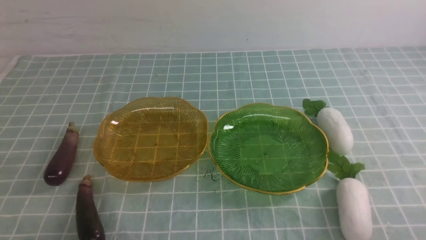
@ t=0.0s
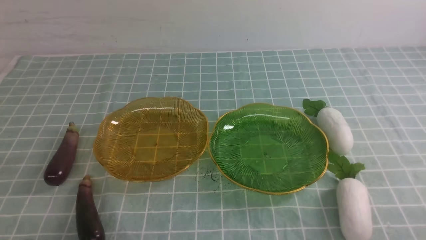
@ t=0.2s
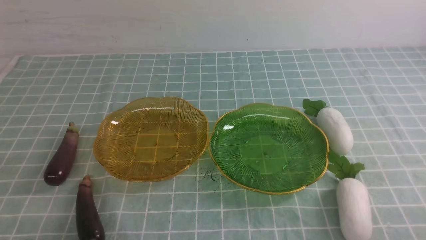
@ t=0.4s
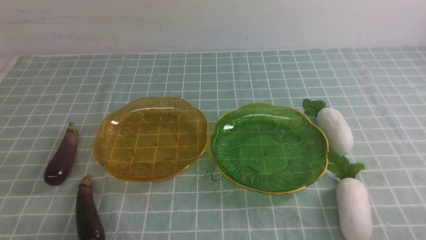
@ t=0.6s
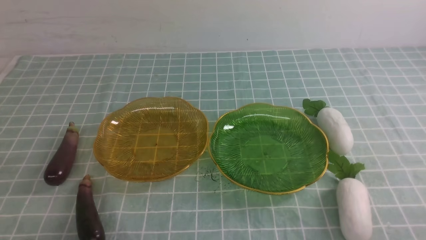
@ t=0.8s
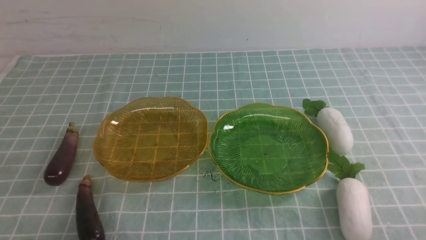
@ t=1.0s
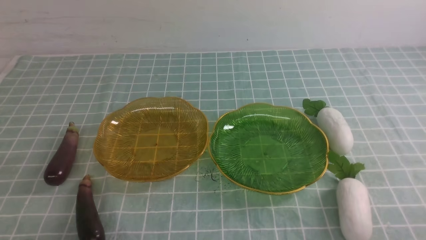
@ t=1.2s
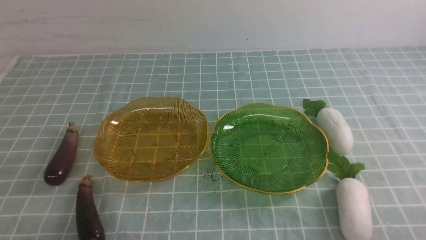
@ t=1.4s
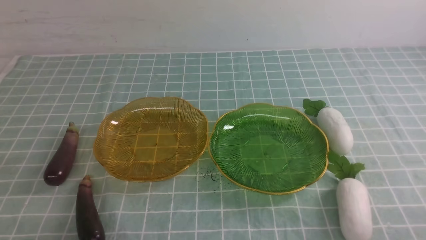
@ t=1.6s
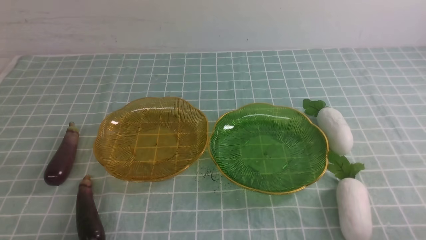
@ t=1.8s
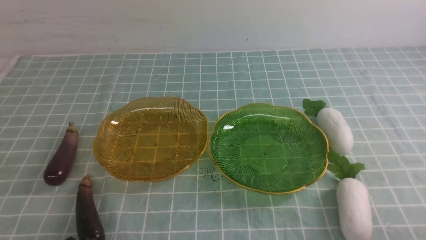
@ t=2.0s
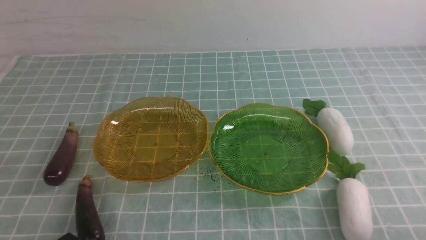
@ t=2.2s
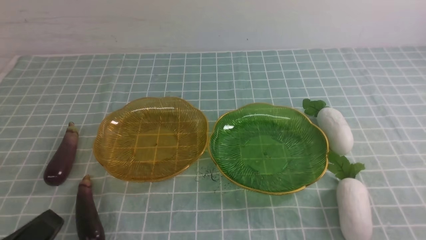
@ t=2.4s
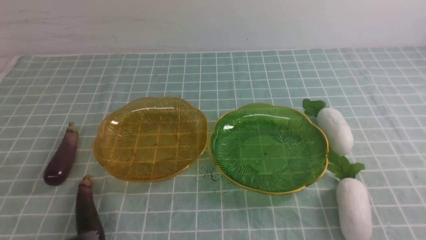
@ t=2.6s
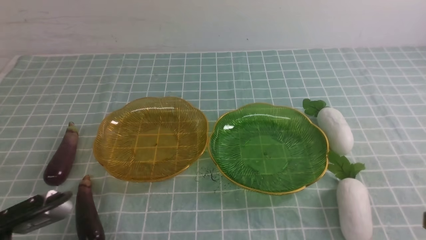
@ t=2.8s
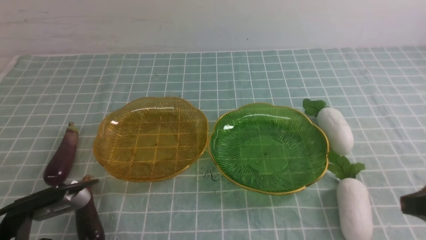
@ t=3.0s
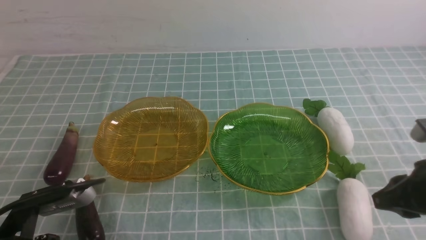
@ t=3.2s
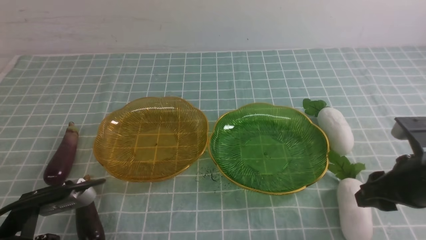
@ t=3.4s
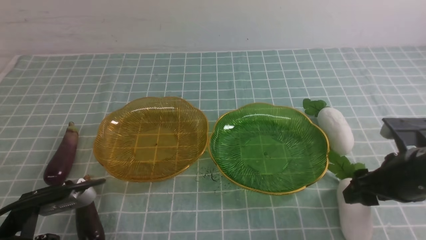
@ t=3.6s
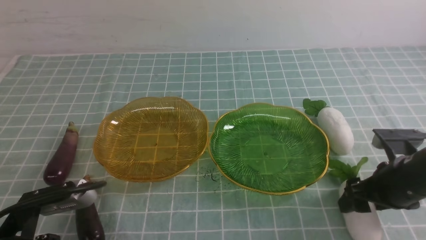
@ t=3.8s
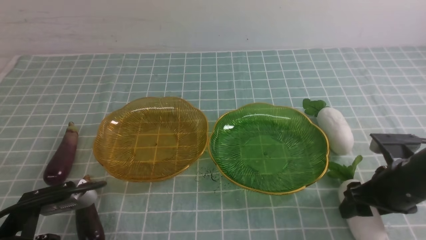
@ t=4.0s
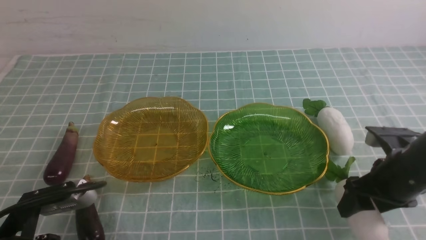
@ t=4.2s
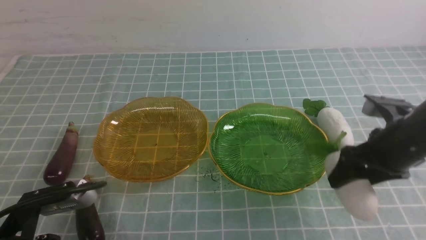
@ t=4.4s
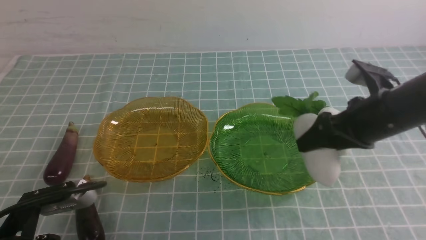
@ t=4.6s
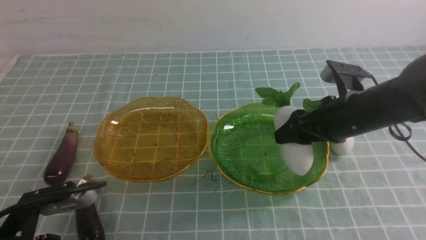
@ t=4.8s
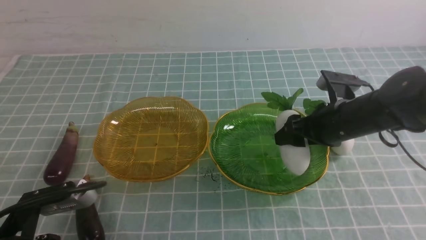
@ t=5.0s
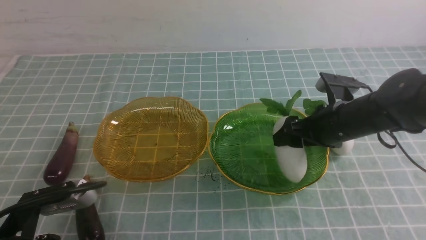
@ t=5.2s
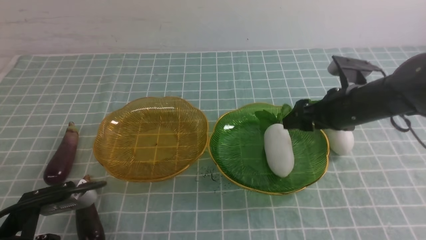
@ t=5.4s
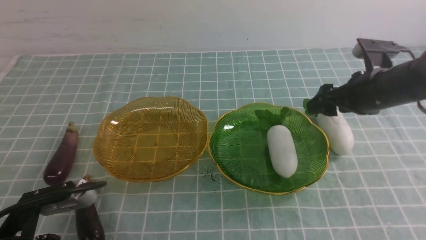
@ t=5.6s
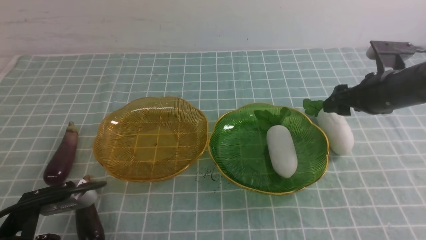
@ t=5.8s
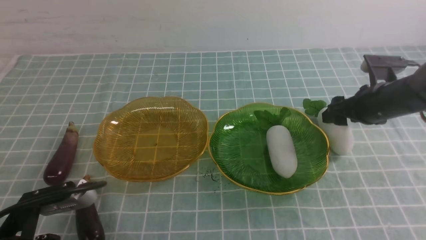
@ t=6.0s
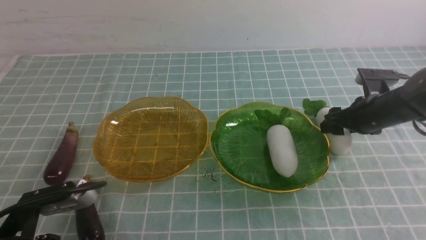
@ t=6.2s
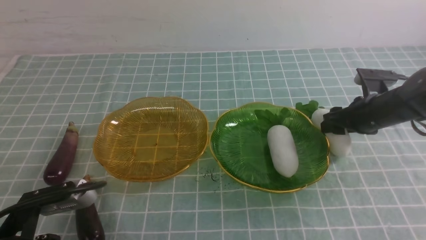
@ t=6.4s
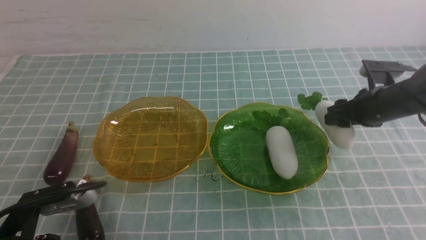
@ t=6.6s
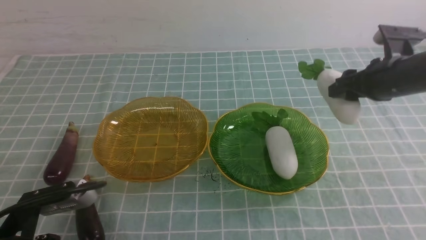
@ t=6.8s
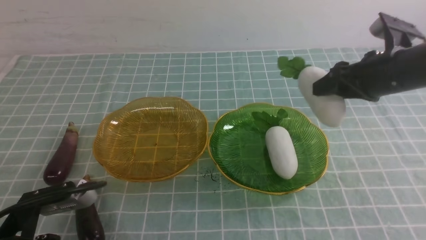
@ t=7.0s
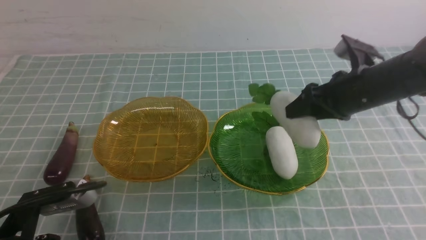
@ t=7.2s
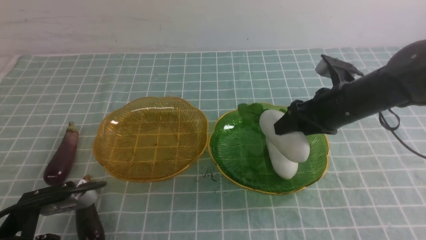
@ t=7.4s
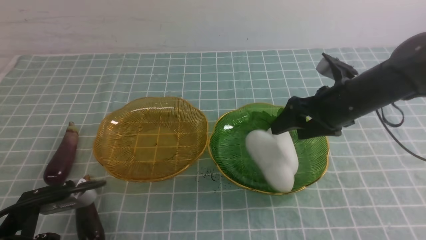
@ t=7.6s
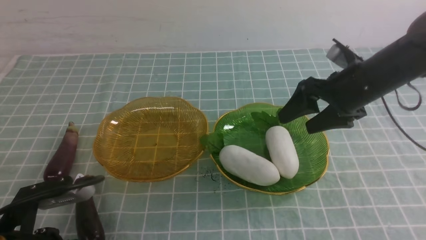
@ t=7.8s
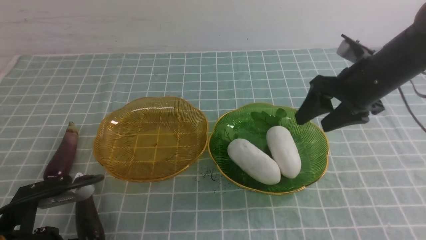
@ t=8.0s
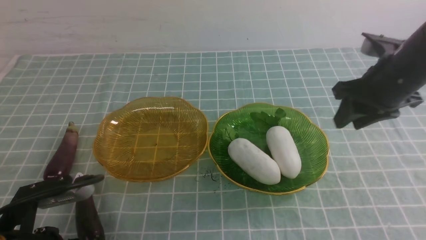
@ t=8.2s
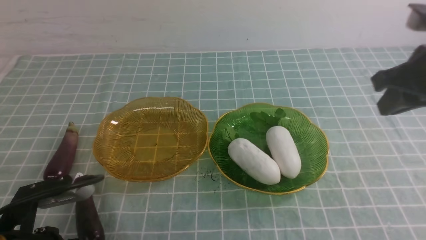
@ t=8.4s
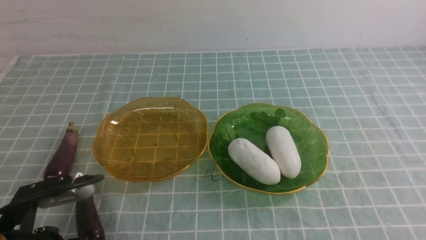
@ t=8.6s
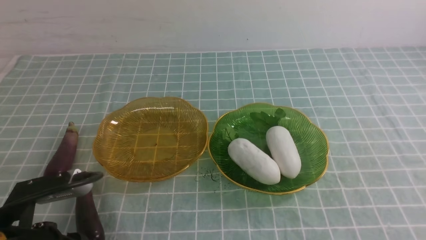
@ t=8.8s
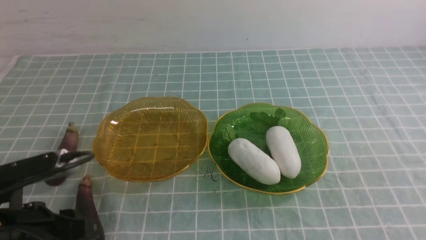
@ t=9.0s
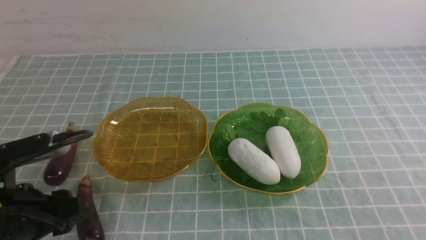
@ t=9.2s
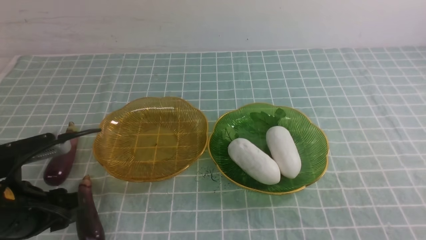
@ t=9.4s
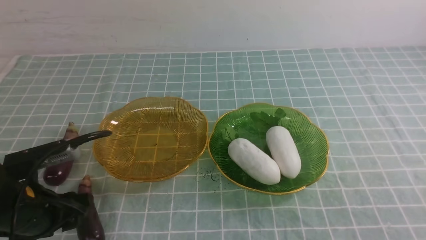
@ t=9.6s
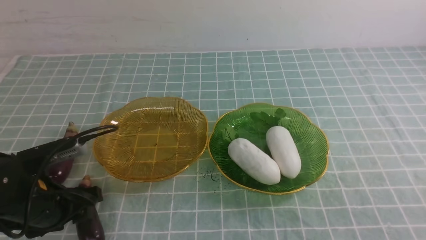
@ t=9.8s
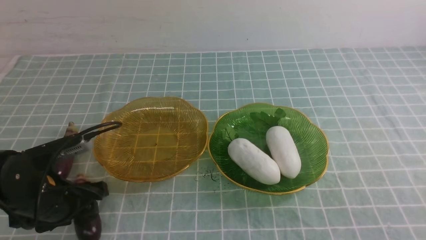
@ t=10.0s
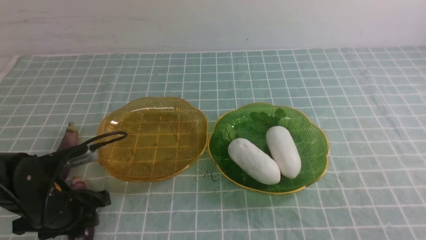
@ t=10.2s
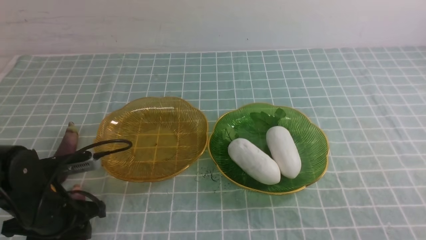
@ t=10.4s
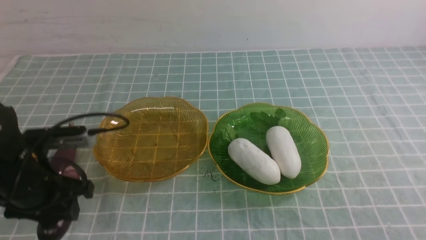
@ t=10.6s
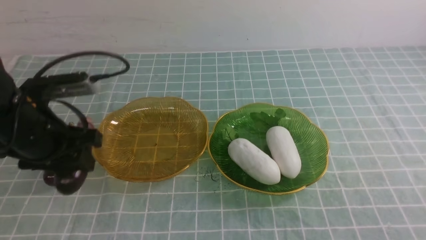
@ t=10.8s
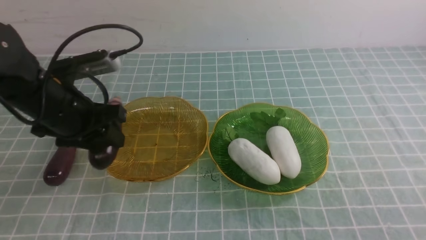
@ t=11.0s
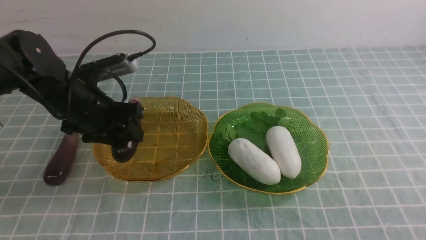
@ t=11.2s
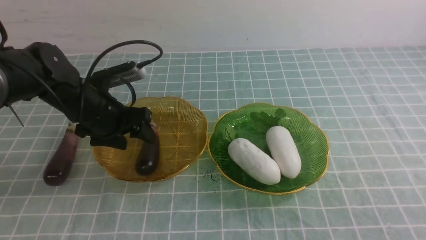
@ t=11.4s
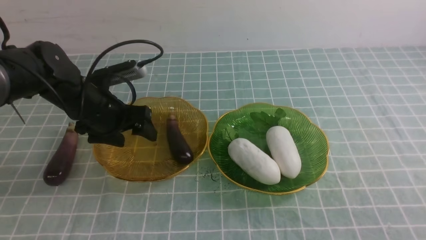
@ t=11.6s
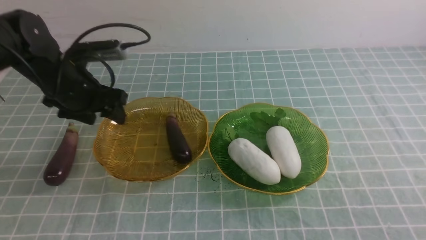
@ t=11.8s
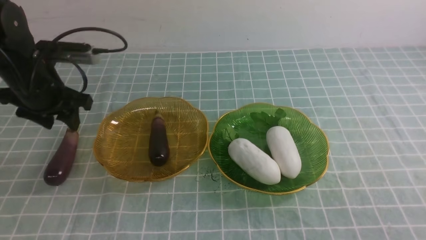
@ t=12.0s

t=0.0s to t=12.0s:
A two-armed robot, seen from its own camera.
Step, t=0.0s to t=5.2s: use the right arm to grab a radish and put it into the right plate.
Step, t=5.6s to t=7.6s: use the right arm to grab a radish and put it into the right plate.
t=1.6s to t=3.0s: The left gripper travels upward by some 5 cm; the right gripper goes approximately 10 cm upward and forward.
t=3.0s to t=4.4s: The right gripper moves forward, approximately 15 cm, and opens up.
t=4.4s to t=6.0s: The right gripper travels forward by roughly 10 cm.
t=6.0s to t=7.6s: The right gripper goes roughly 5 cm to the left.
t=7.6s to t=9.0s: The right gripper shifts some 30 cm backward, and closes up; the left gripper opens its fingers.
t=9.0s to t=10.4s: The left gripper shifts about 10 cm forward and downward, and opens.
t=10.4s to t=12.0s: The left gripper is displaced forward and upward by some 15 cm.

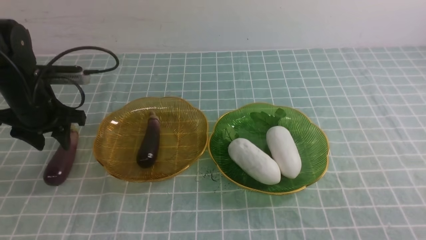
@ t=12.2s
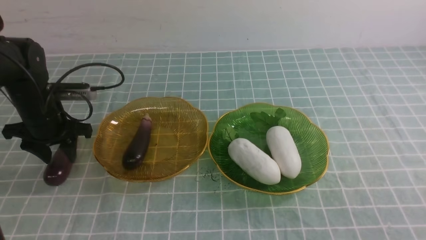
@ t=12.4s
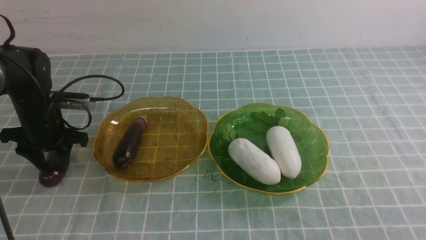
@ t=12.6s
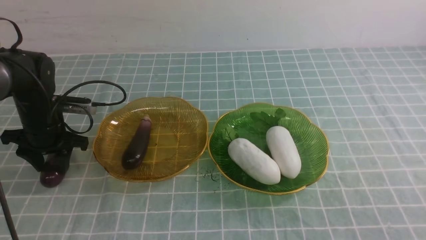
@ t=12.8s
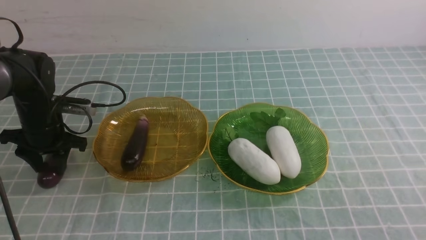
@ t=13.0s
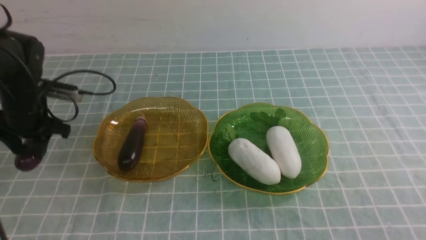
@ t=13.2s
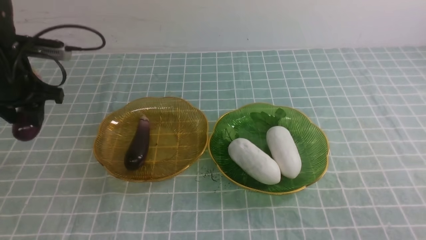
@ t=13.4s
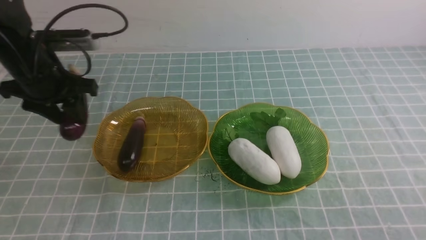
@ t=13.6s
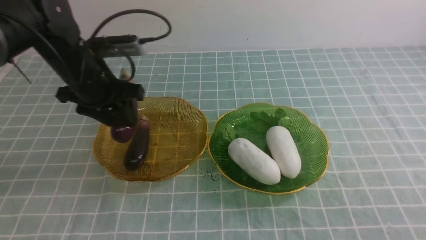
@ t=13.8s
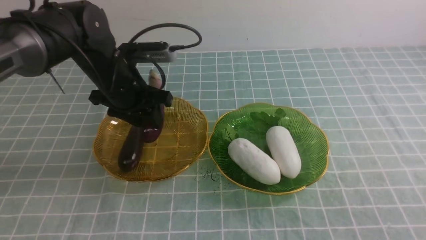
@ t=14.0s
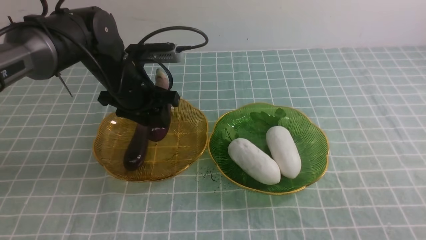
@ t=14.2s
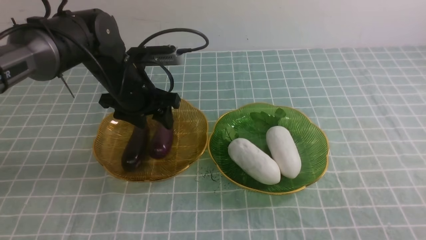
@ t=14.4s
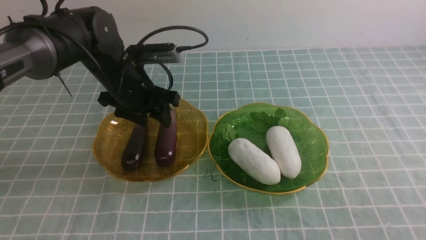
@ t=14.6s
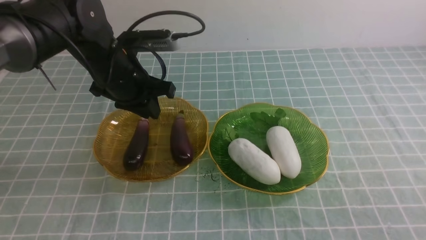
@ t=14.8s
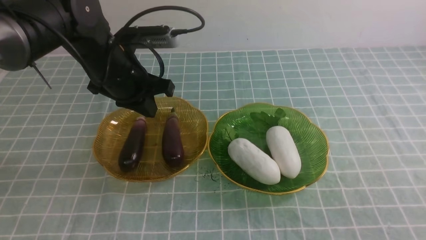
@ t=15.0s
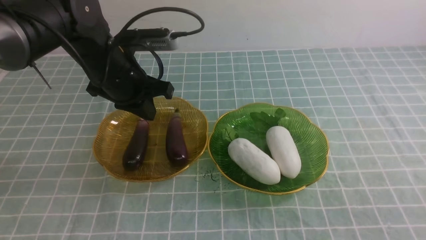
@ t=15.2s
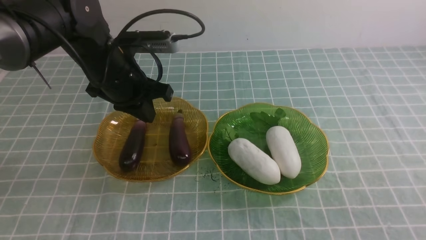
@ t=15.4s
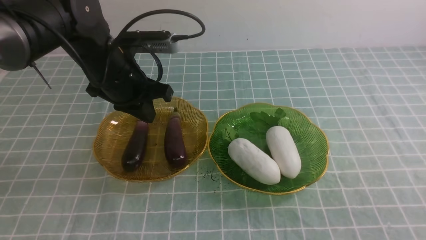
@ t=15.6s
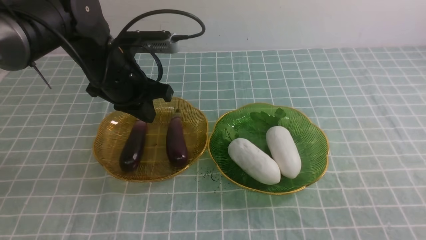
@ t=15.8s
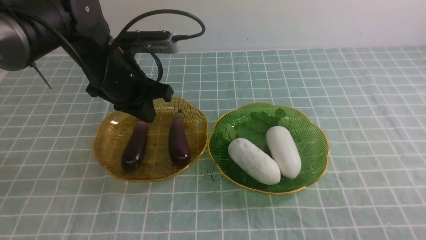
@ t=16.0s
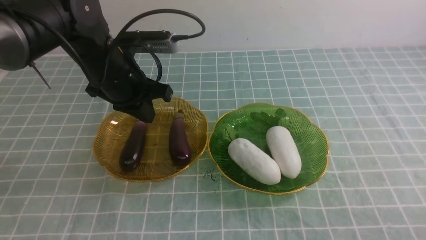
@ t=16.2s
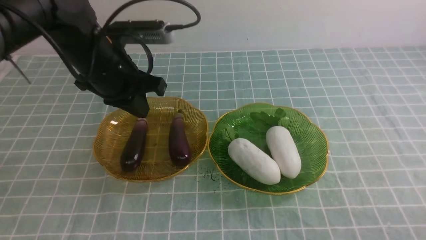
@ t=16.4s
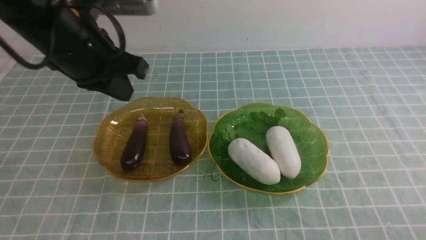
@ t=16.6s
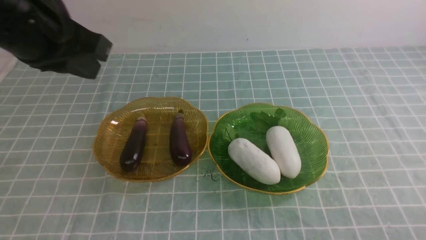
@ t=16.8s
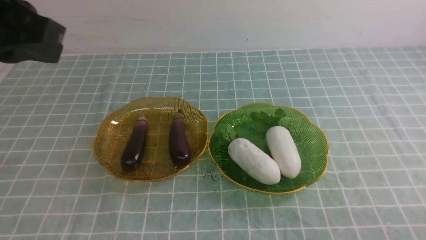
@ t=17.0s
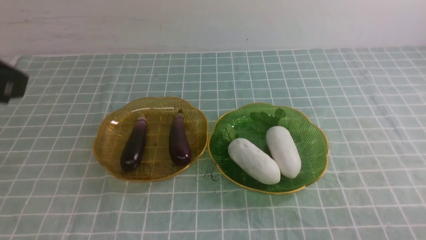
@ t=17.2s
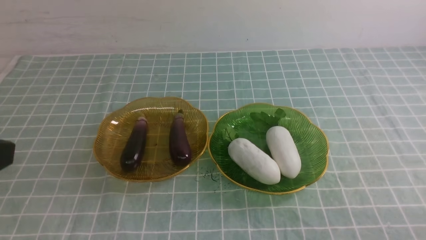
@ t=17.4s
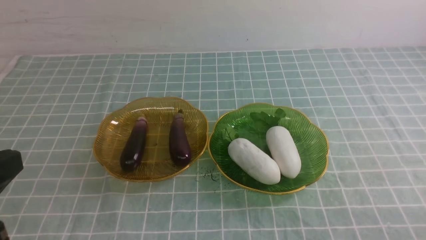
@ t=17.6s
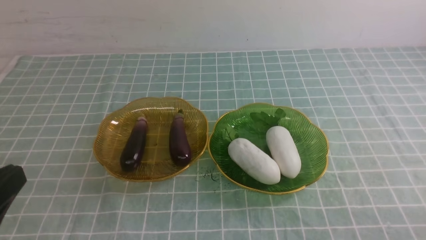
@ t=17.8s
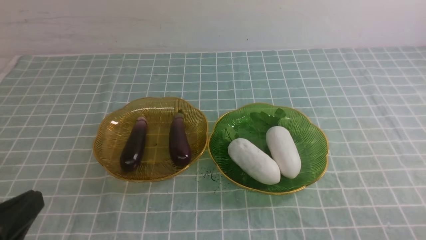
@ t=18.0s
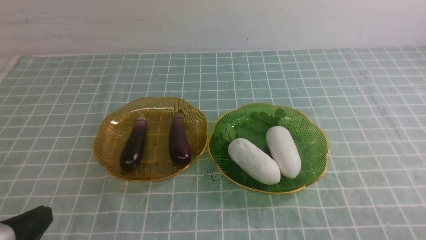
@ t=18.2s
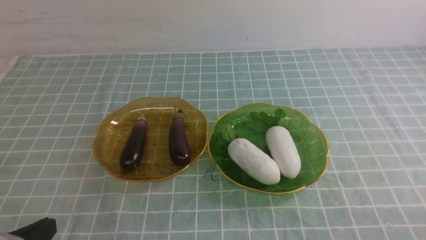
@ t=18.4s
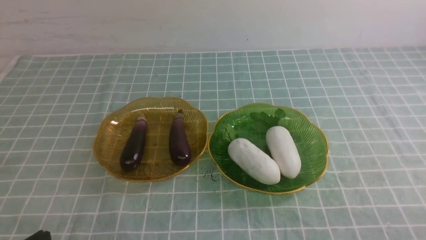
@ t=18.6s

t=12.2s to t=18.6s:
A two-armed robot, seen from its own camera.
Step, t=12.2s to t=14.6s: use the left arm to grab an eggplant and put it into the left plate.
t=12.2s to t=13.8s: The left gripper is displaced to the right by approximately 5 cm, and travels downward and back again, some 5 cm each way.
t=13.8s to t=15.4s: The left gripper heads to the right, covering about 5 cm, and closes its fingers.
t=15.4s to t=17.0s: The right gripper is displaced downward by about 10 cm, while the left gripper travels upward and backward by approximately 20 cm.
t=17.0s to t=18.6s: The left gripper moves downward and backward, approximately 30 cm.
